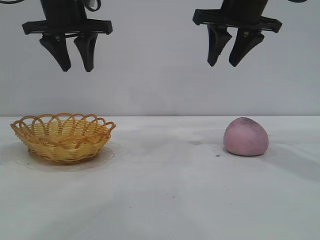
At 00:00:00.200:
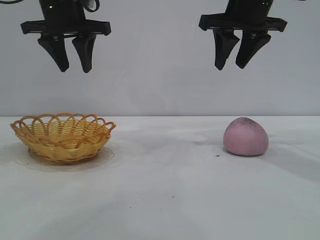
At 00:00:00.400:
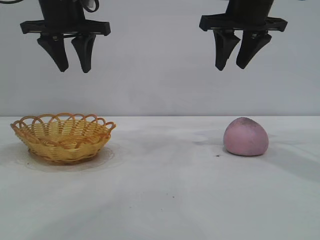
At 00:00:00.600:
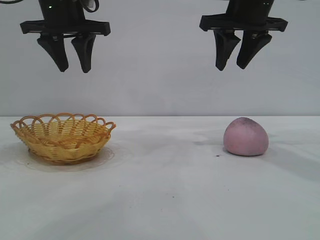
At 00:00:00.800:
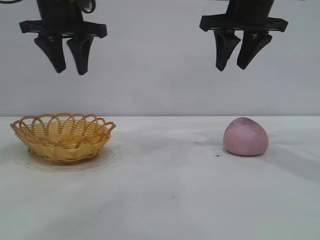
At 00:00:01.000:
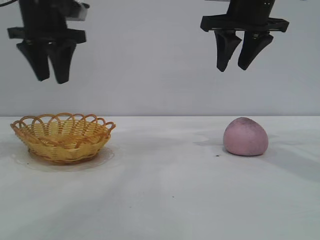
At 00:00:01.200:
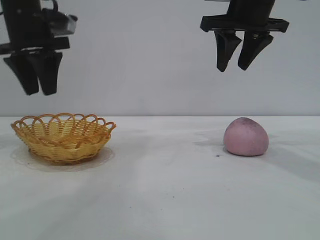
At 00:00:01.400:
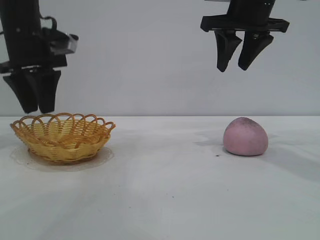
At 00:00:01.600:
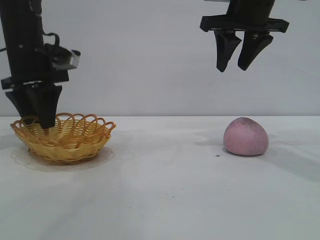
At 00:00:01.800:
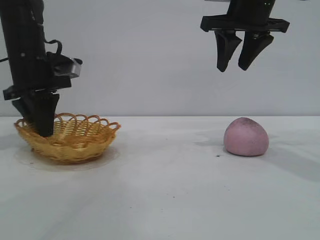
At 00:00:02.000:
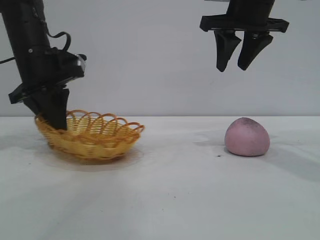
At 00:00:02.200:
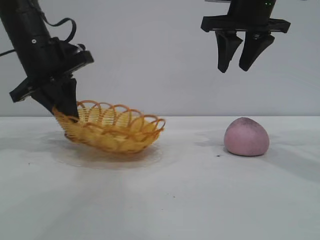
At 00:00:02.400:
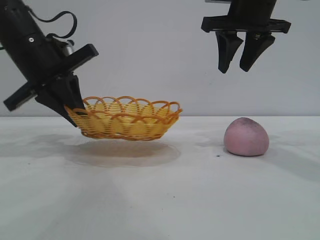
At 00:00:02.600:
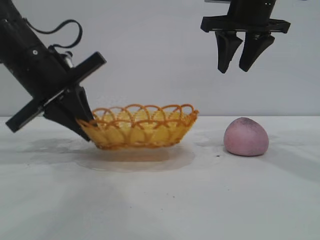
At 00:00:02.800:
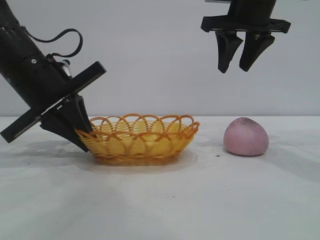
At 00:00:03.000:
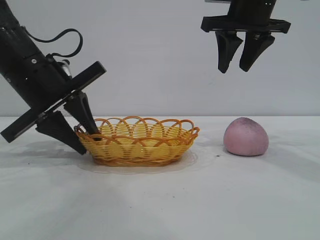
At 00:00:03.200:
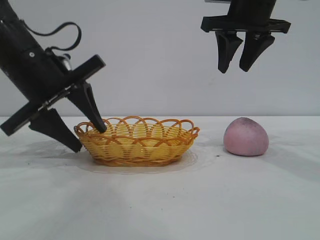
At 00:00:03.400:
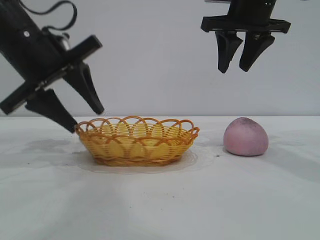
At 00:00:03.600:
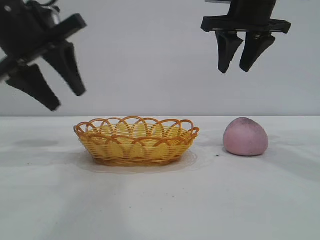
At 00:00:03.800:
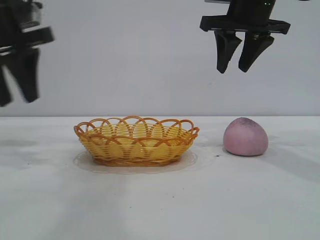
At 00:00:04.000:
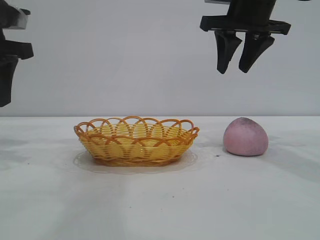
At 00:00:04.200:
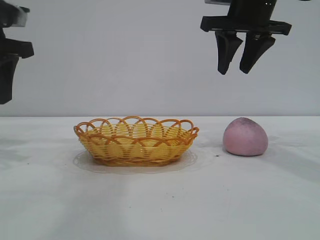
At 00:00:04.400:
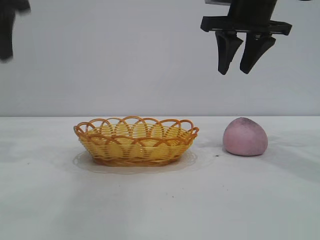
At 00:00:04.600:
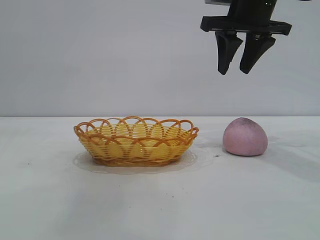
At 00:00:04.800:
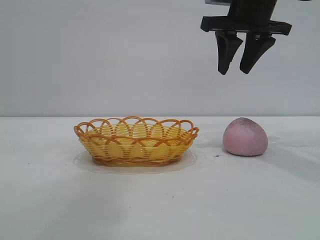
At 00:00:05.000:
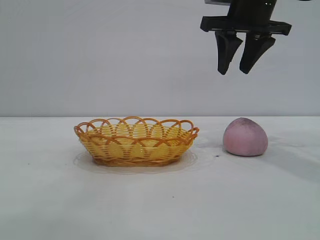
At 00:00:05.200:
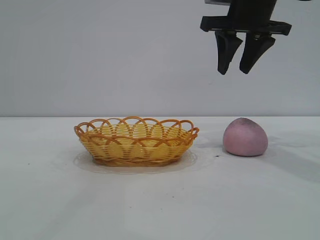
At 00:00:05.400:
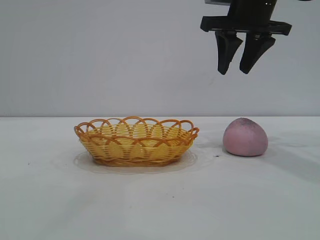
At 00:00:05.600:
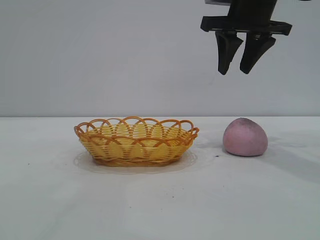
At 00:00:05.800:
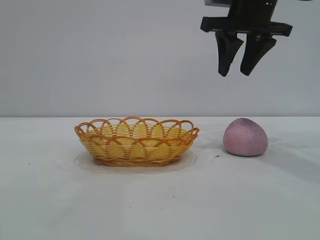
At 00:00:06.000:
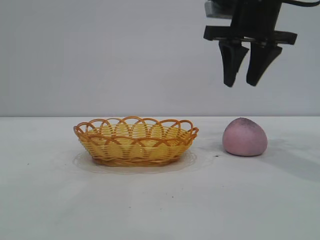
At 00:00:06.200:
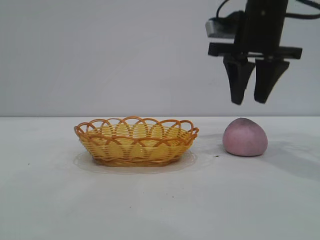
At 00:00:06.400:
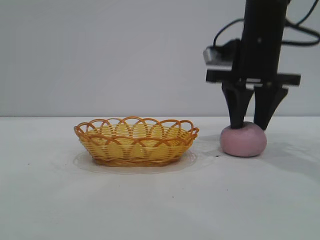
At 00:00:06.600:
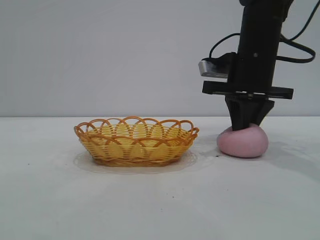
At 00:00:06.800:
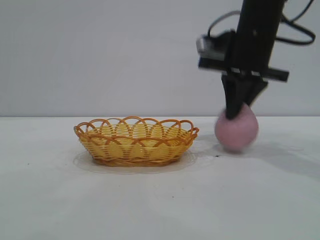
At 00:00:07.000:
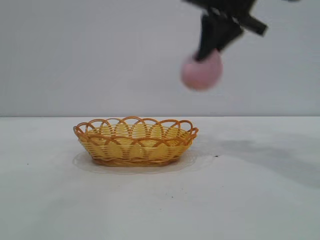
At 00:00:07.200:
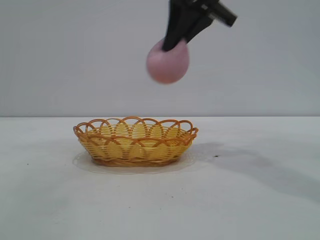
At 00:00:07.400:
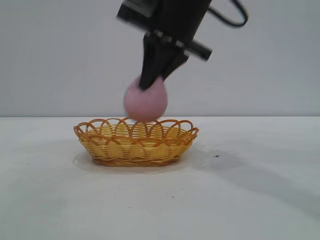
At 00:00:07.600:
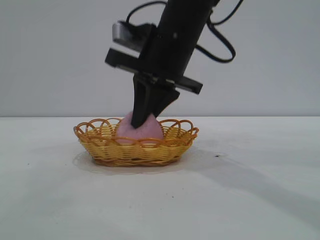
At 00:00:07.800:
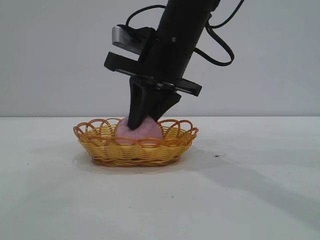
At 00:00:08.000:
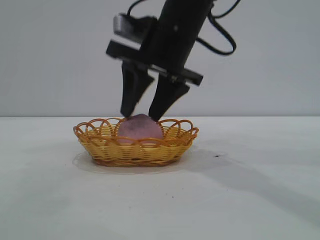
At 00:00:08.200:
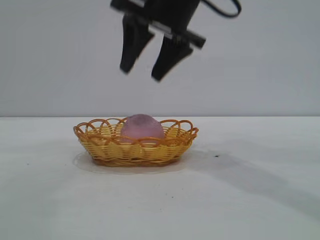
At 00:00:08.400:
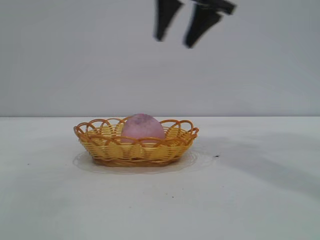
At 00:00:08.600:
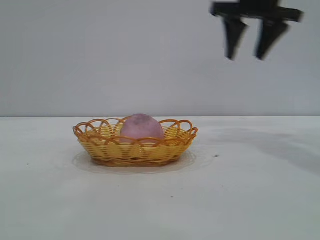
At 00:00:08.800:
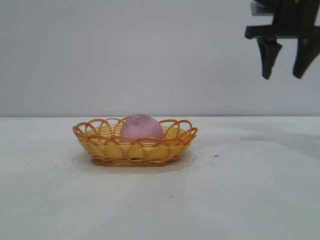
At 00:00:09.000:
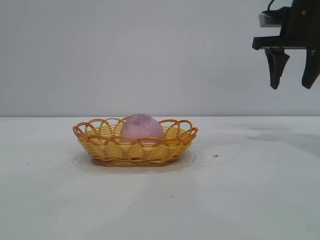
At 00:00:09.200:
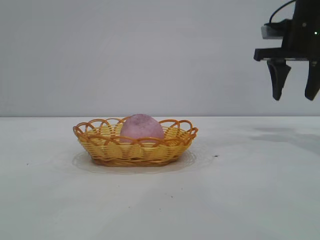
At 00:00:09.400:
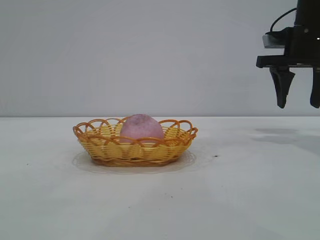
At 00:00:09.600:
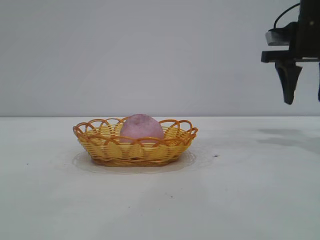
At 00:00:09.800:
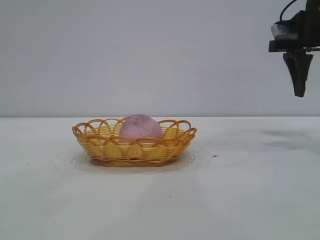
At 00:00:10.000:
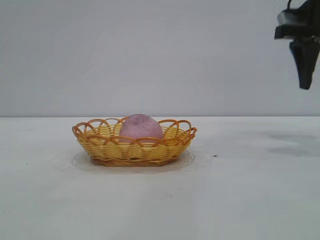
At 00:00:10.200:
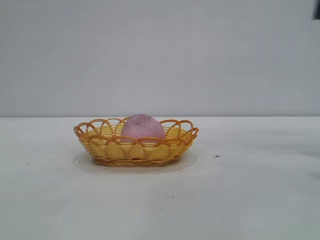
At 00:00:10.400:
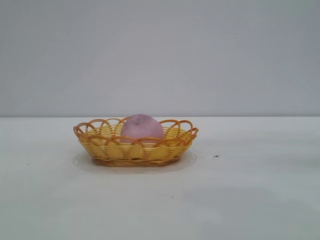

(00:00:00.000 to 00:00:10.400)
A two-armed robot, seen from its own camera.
Task of the whole recording: pick up the peach and put it into the basket.
Step, 00:00:00.000 - 00:00:03.400: Move the basket to the center of view.
Step, 00:00:03.600 - 00:00:06.800: Pick up the peach.
Step, 00:00:07.000 - 00:00:08.200: place the peach into the basket.
